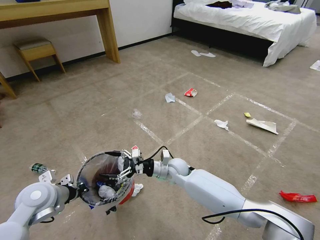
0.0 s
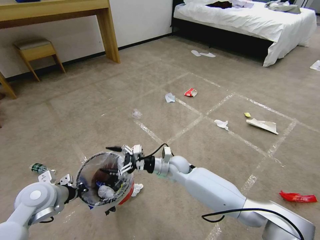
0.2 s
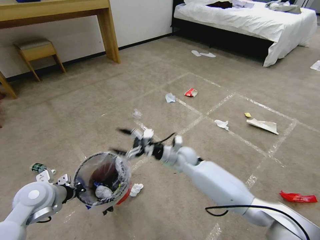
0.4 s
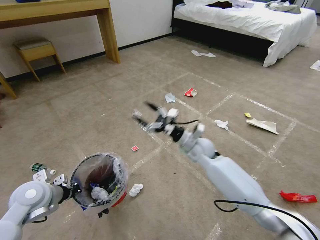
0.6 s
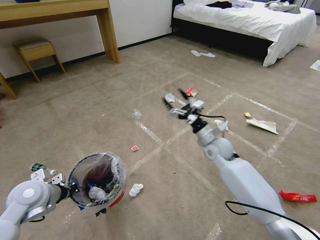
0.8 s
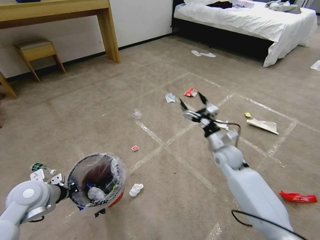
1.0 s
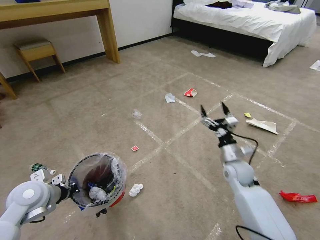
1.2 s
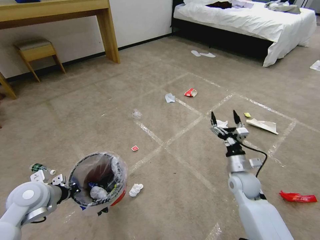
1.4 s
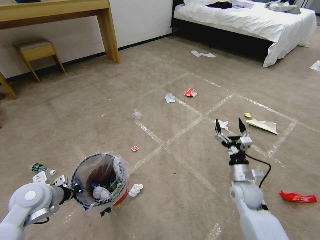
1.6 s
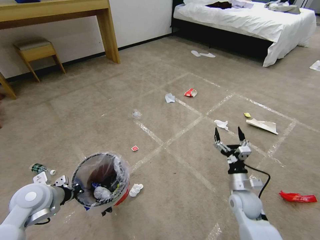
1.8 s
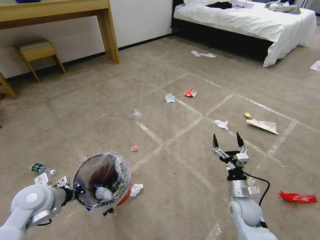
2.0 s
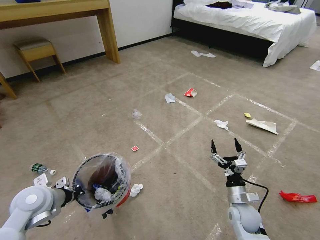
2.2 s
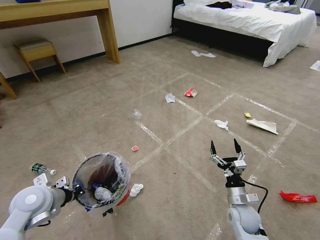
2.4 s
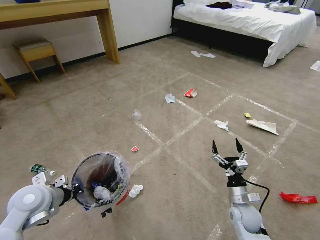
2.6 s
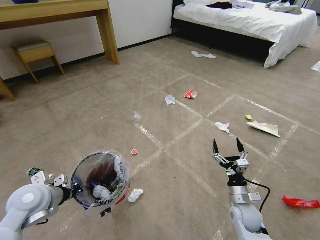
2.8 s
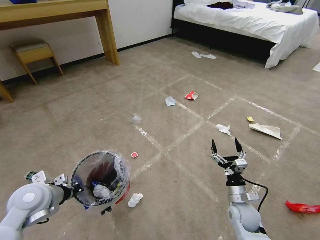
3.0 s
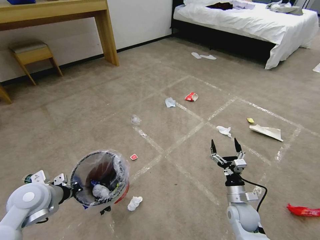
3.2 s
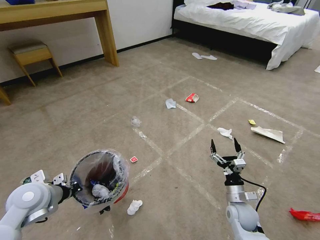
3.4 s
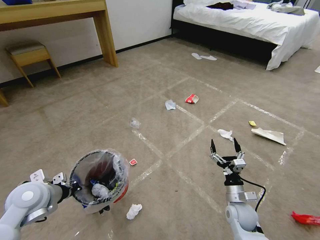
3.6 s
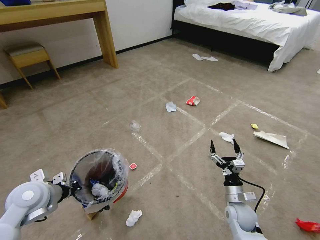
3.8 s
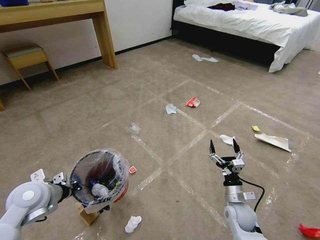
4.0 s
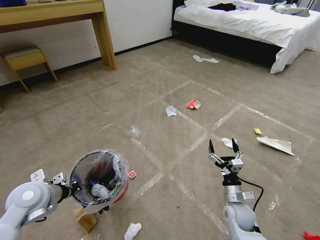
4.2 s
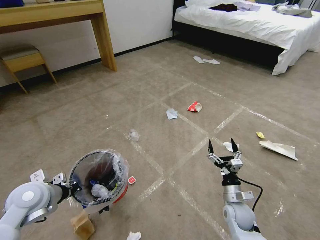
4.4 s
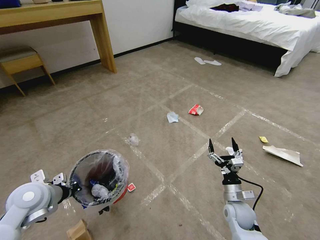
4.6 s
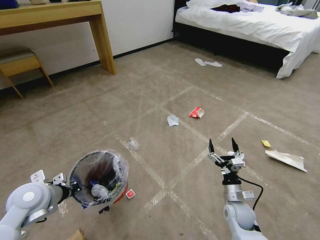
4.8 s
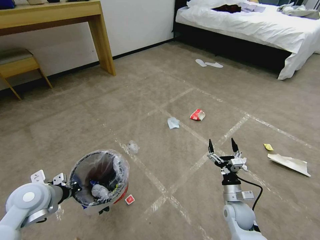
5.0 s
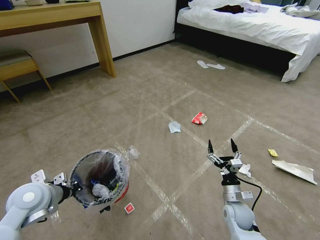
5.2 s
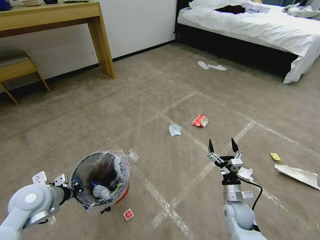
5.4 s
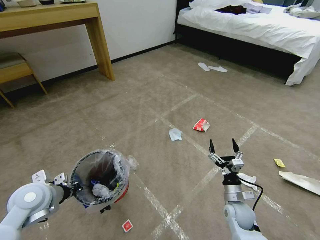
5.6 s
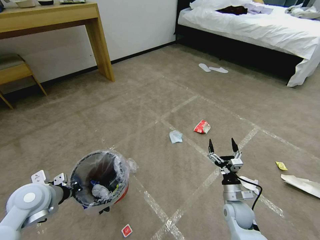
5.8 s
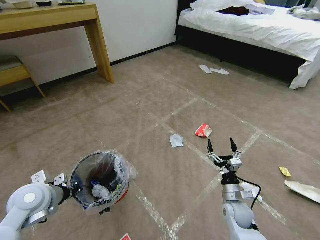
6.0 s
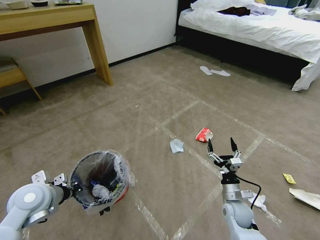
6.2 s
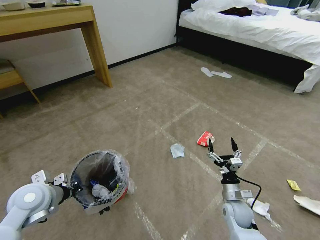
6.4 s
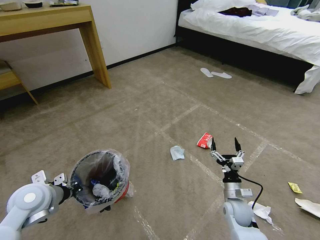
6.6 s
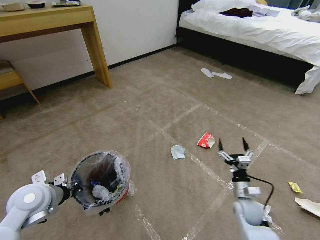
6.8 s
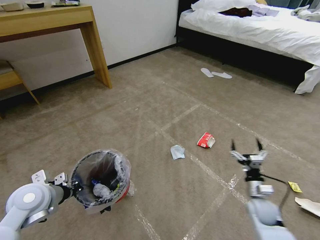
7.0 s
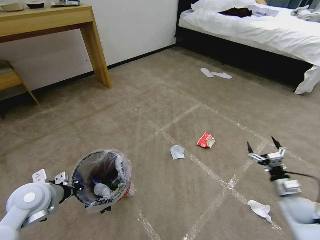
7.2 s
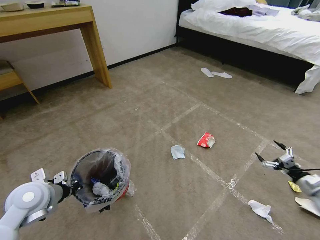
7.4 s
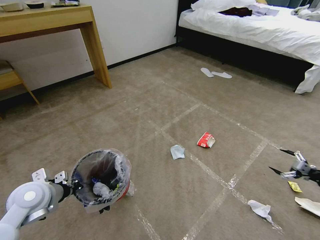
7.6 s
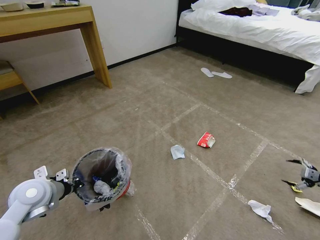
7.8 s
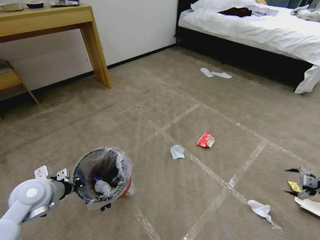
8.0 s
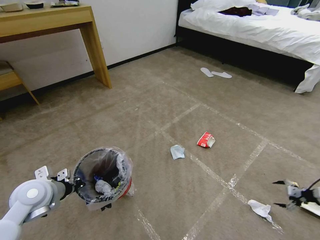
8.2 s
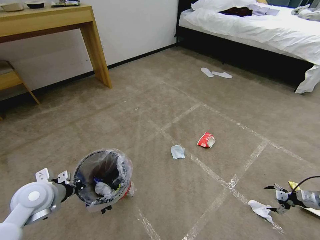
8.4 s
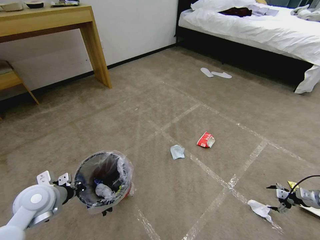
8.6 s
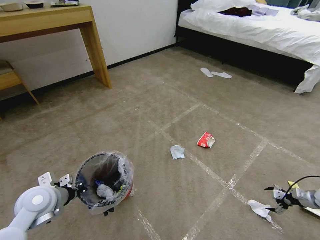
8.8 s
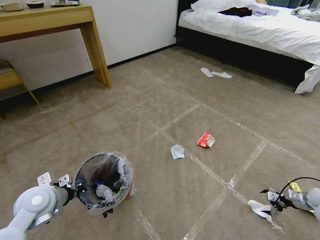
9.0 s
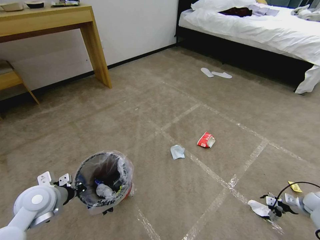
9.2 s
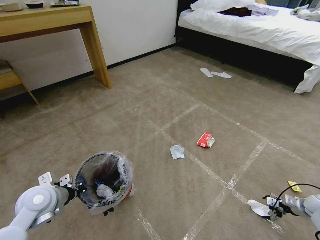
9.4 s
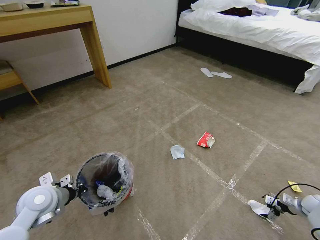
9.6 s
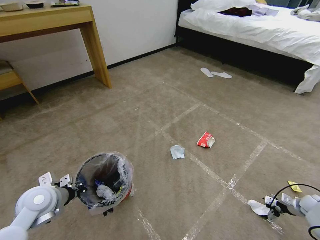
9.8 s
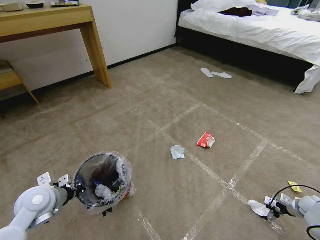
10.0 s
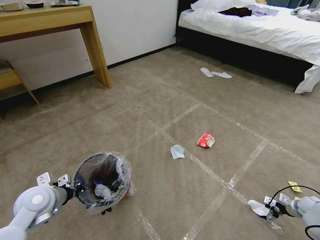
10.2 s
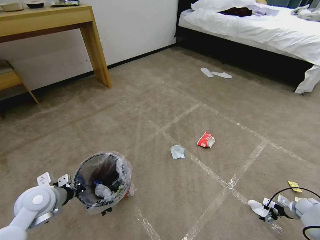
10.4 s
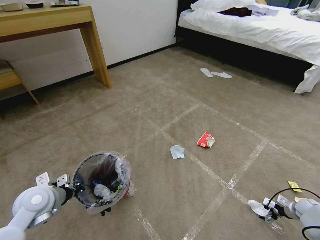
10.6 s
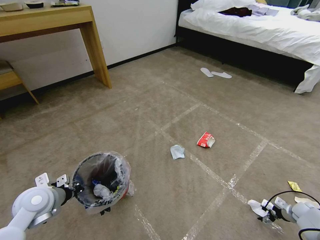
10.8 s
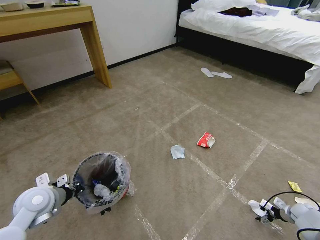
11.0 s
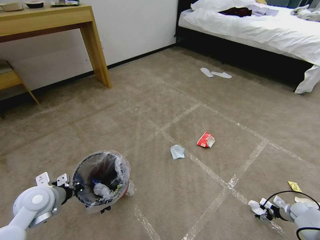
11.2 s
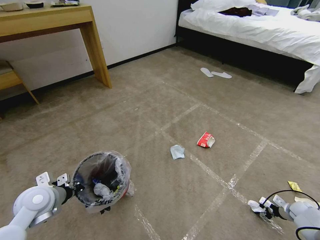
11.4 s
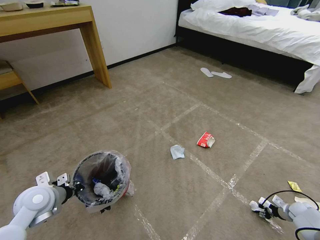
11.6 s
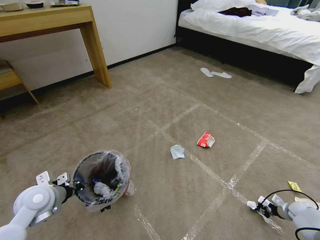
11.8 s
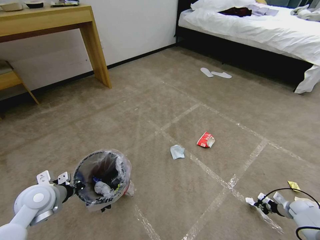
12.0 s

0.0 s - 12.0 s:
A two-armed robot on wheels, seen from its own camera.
Task of the whole recording: Pick up the trash bin and place the garbage on the floor into it.
0.0 s - 1.6 s: The right gripper moves to the right and backward, about 25 cm.
1.6 s - 3.0 s: The right gripper travels downward and backward by about 10 cm.
6.0 s - 7.6 s: The right gripper travels to the right by some 40 cm.
7.6 s - 9.0 s: The right gripper heads downward, covering about 15 cm.
9.0 s - 10.4 s: The right gripper travels downward by roughly 5 cm.
10.4 s - 12.0 s: The right gripper closes.

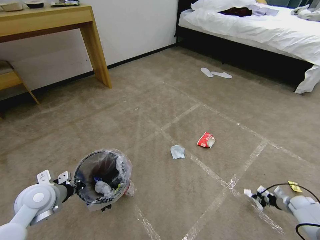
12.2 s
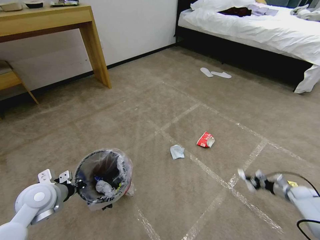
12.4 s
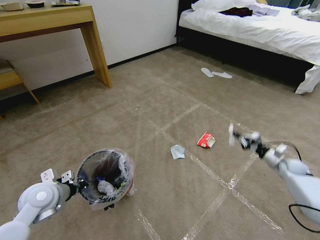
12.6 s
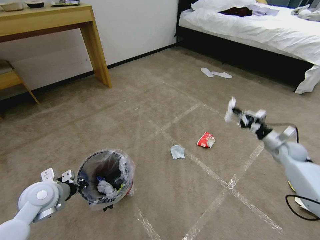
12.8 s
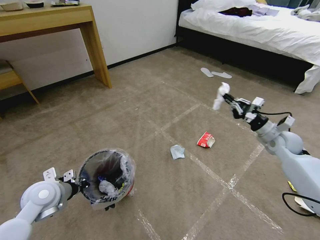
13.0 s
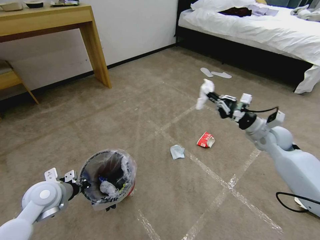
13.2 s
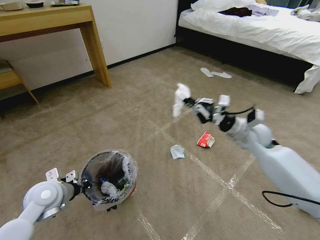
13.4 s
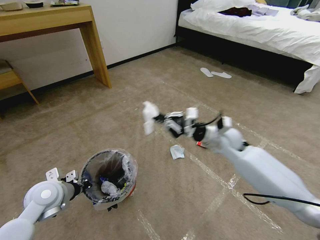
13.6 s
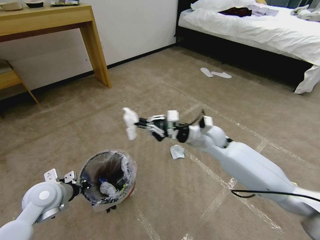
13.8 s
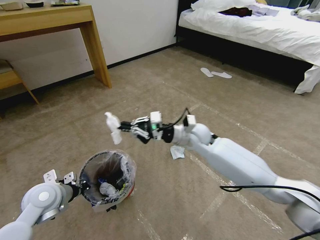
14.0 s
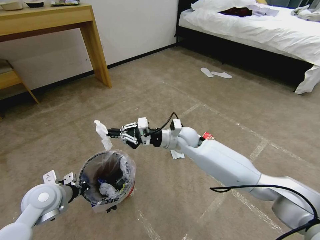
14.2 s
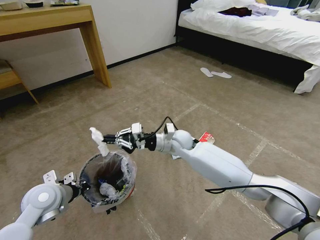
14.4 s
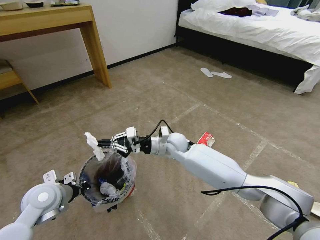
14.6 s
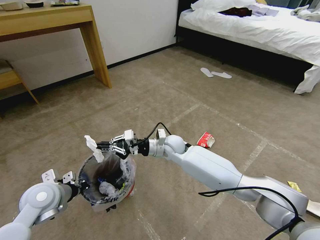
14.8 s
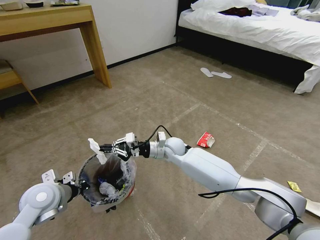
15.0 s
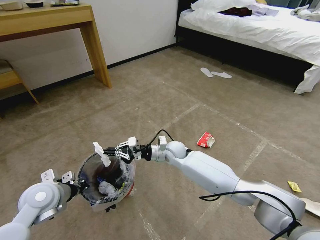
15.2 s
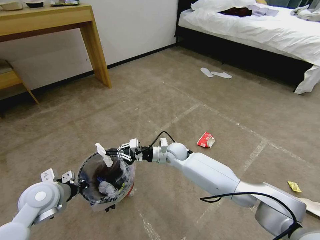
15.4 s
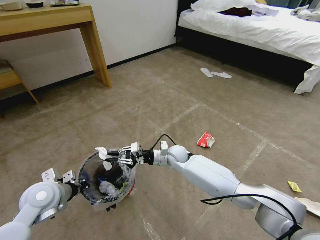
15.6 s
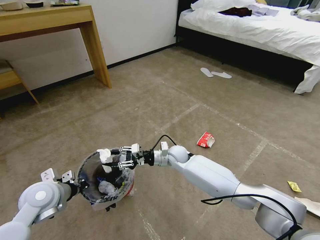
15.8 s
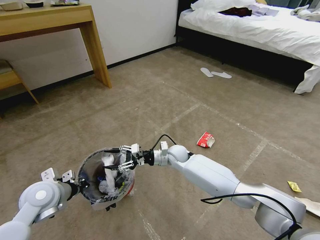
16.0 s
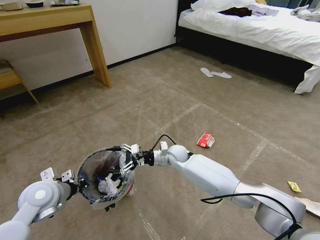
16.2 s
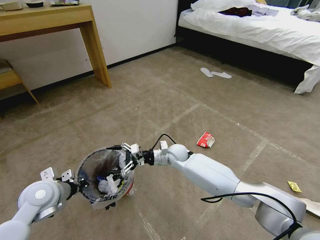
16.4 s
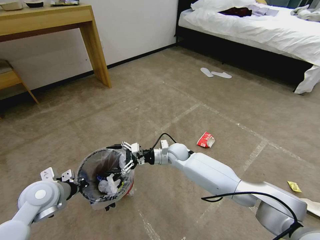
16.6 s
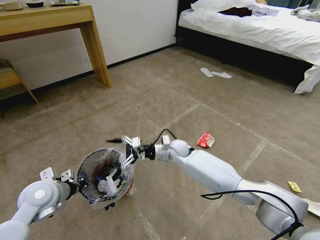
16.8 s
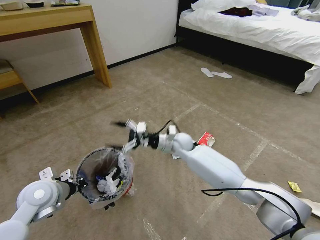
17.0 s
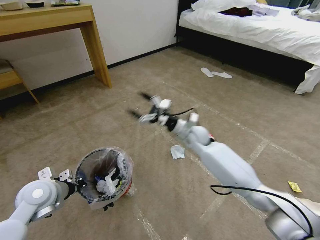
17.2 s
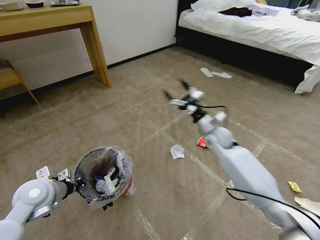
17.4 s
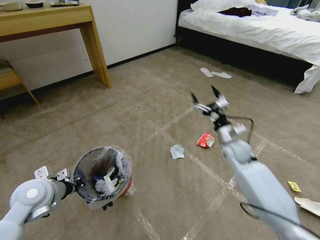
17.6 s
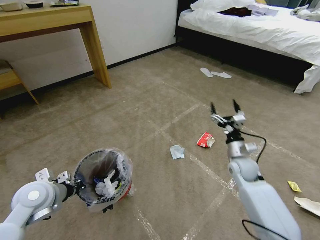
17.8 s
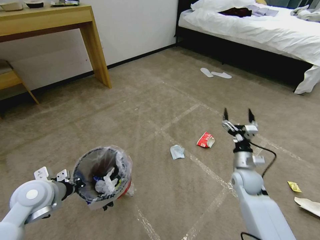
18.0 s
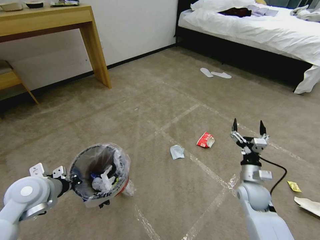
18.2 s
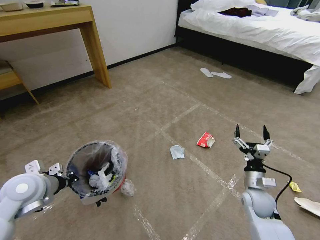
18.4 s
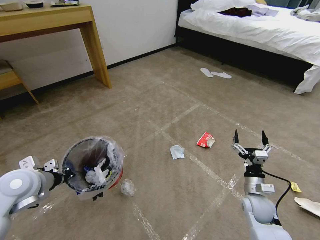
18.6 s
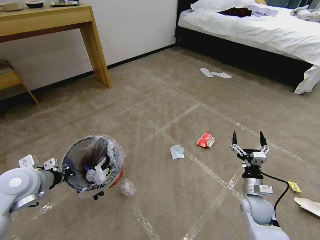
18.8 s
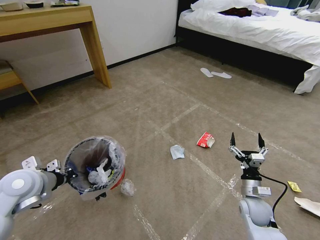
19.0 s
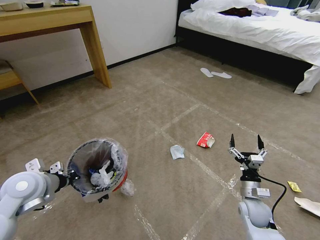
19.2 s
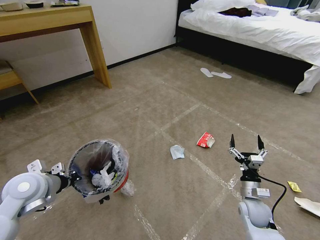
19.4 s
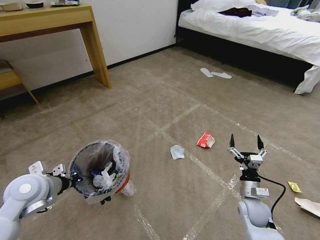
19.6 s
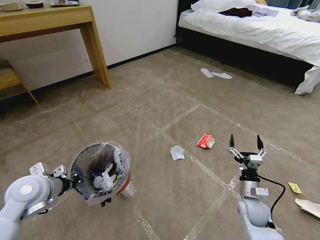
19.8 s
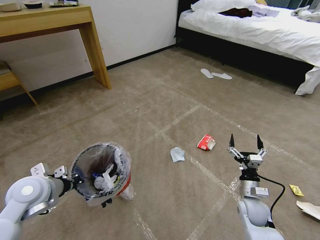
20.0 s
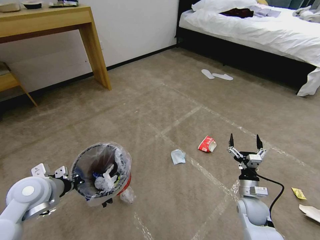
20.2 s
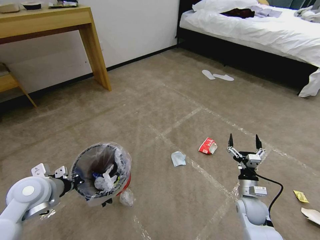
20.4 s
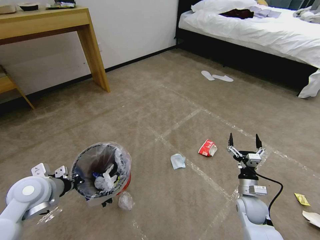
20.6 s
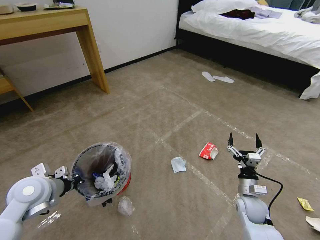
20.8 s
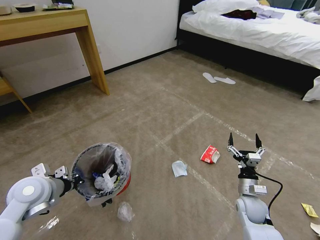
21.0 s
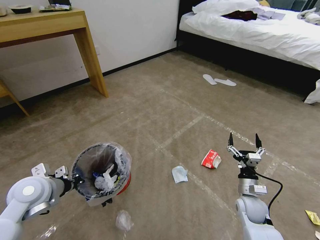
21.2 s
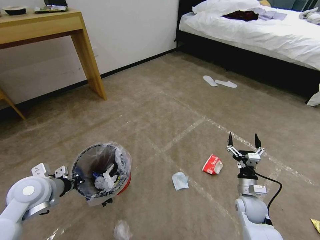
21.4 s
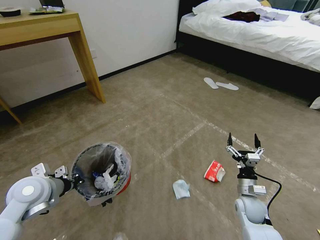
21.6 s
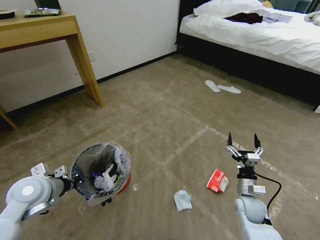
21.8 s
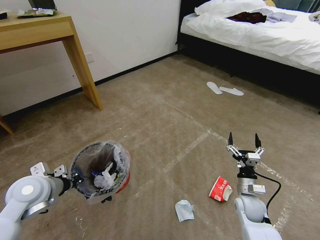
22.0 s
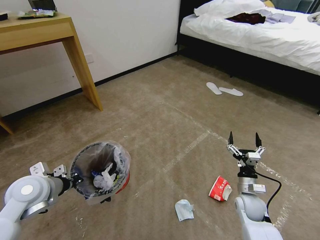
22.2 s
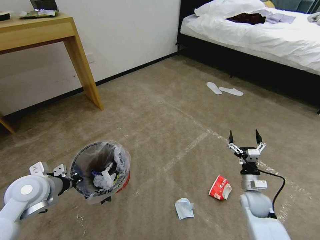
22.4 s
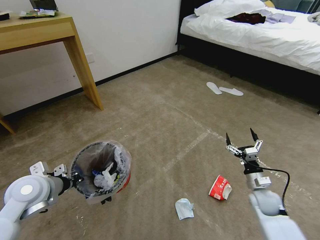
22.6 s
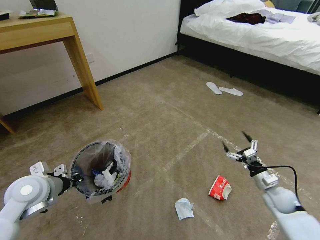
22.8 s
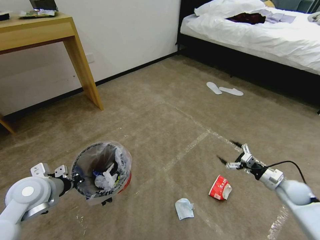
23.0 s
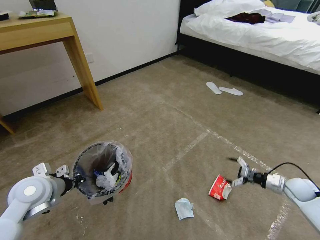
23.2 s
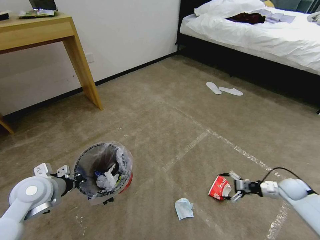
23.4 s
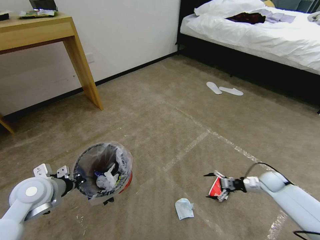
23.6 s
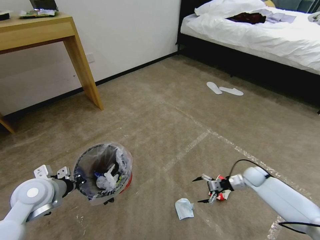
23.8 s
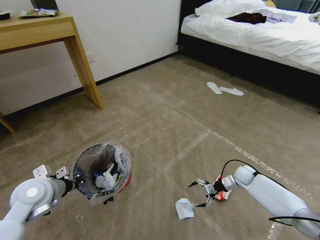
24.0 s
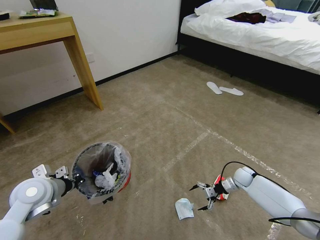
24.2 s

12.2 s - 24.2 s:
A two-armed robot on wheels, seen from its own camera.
Task of the whole recording: Pick up the trash bin and place the garbage on the floor into it.
12.2 s - 13.8 s: The right gripper moves to the left and upward, approximately 50 cm.
13.8 s - 15.2 s: The right gripper moves to the left and downward, approximately 15 cm.
15.2 s - 16.6 s: The right gripper opens.
16.6 s - 18.2 s: The right gripper travels to the right and backward by about 30 cm.
18.2 s - 19.8 s: The right gripper changes place by some 5 cm.
22.6 s - 24.2 s: The right gripper heads forward and downward, covering approximately 15 cm, and travels to the right and back again, some 20 cm each way.
